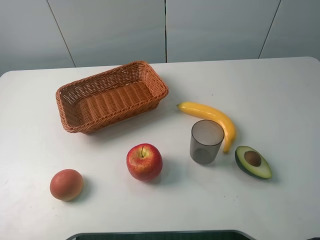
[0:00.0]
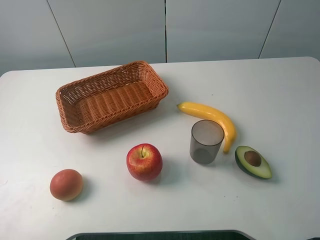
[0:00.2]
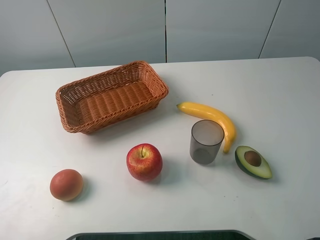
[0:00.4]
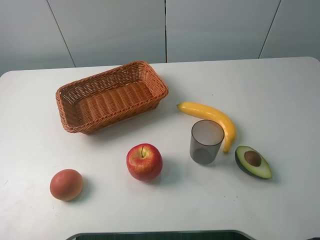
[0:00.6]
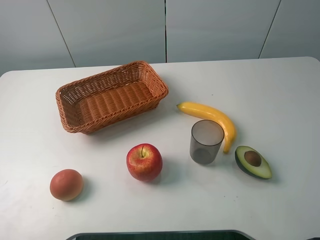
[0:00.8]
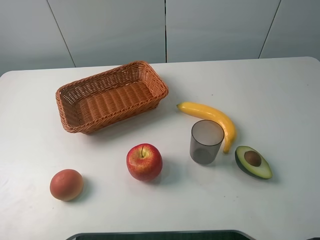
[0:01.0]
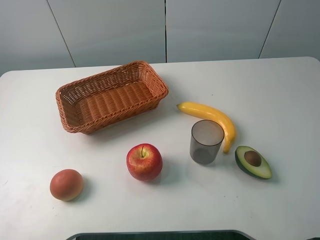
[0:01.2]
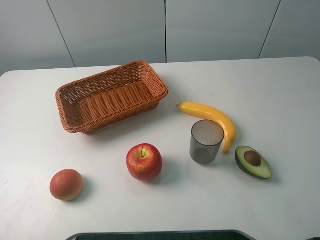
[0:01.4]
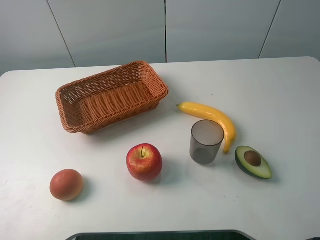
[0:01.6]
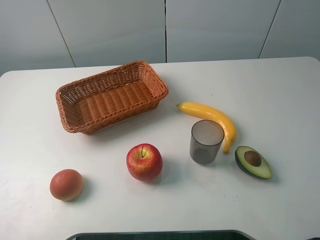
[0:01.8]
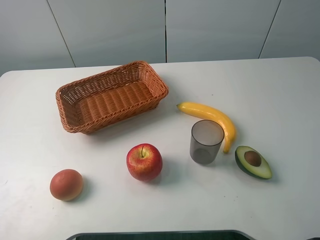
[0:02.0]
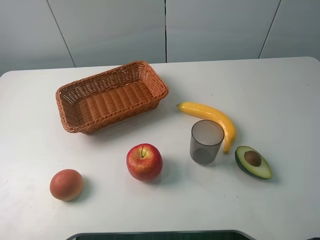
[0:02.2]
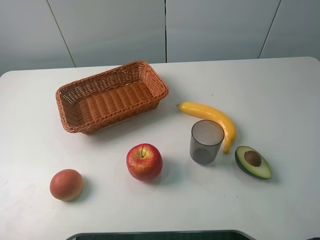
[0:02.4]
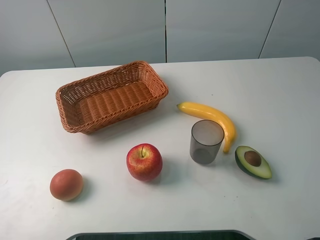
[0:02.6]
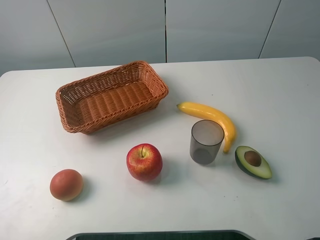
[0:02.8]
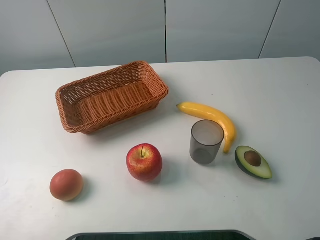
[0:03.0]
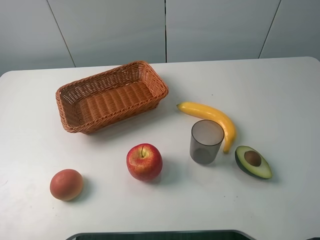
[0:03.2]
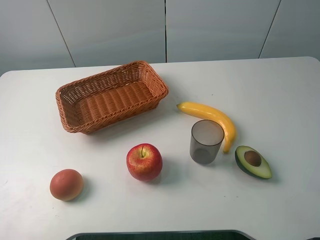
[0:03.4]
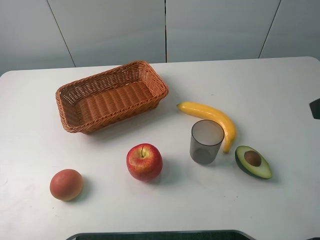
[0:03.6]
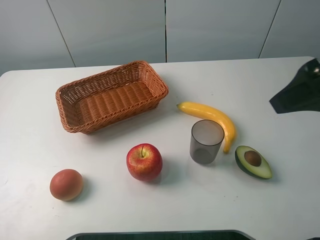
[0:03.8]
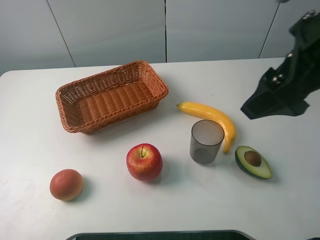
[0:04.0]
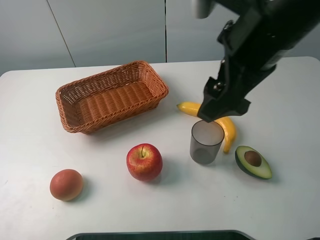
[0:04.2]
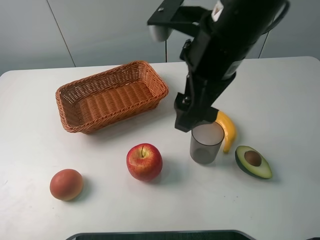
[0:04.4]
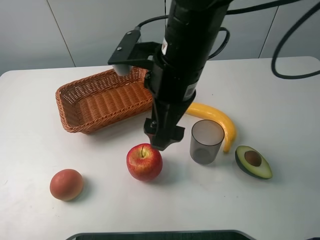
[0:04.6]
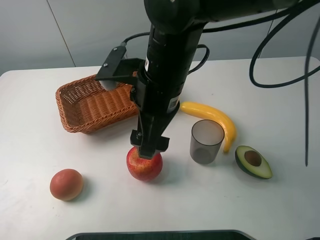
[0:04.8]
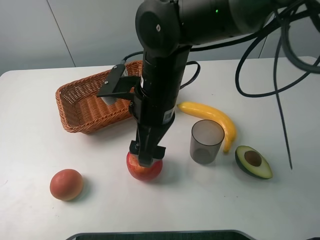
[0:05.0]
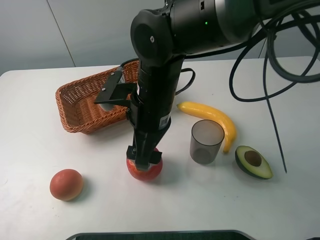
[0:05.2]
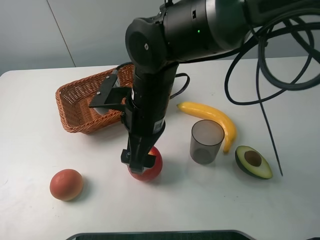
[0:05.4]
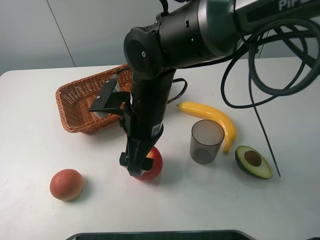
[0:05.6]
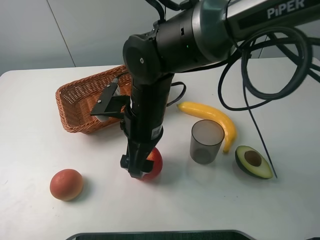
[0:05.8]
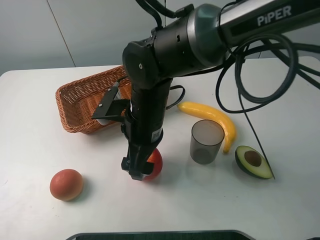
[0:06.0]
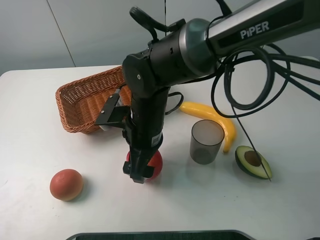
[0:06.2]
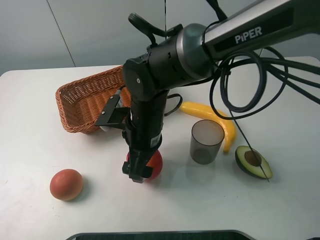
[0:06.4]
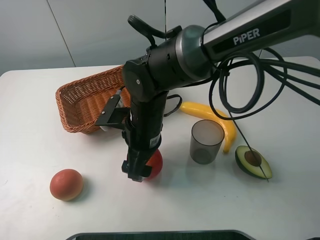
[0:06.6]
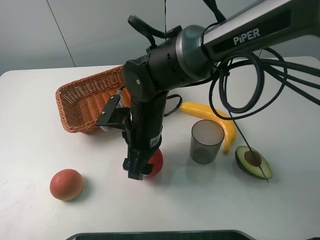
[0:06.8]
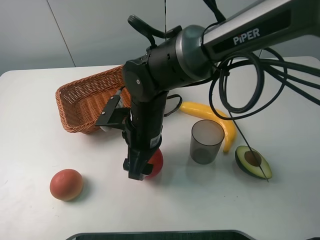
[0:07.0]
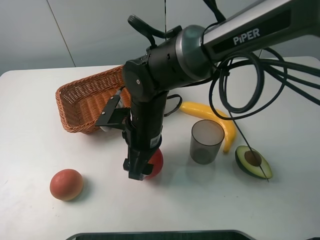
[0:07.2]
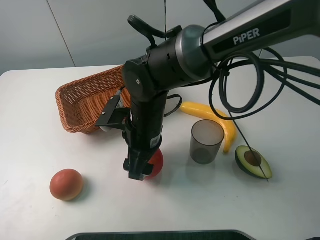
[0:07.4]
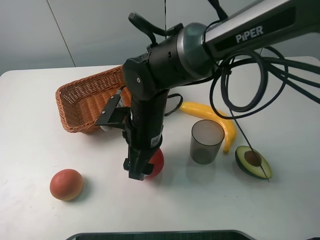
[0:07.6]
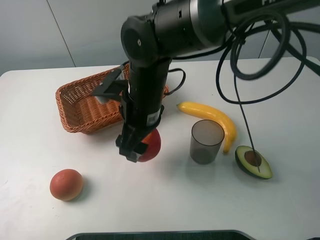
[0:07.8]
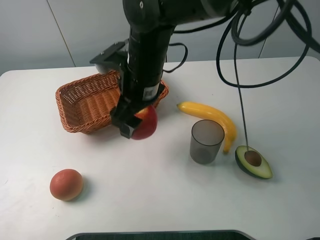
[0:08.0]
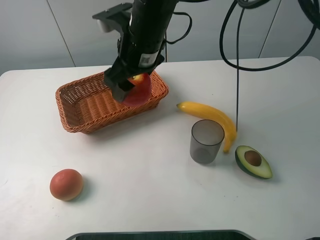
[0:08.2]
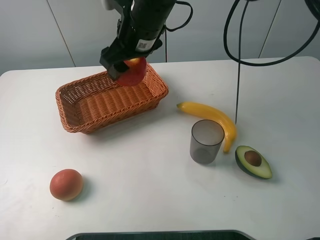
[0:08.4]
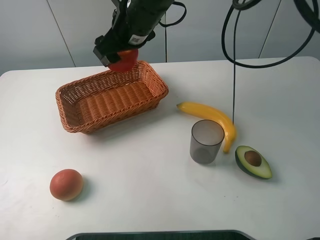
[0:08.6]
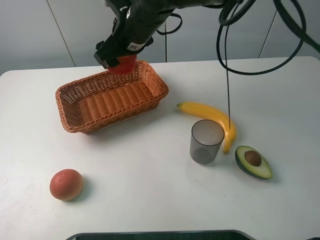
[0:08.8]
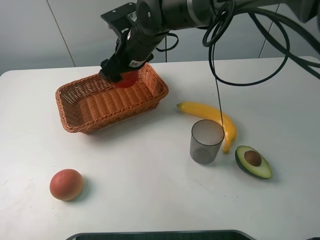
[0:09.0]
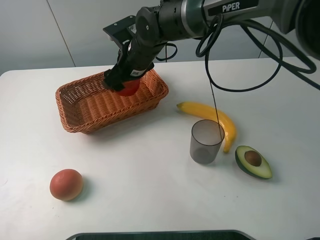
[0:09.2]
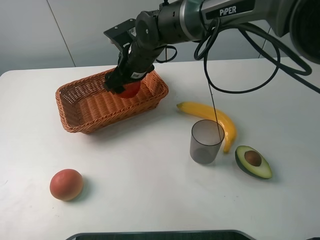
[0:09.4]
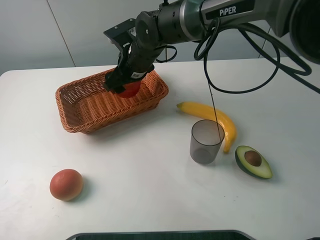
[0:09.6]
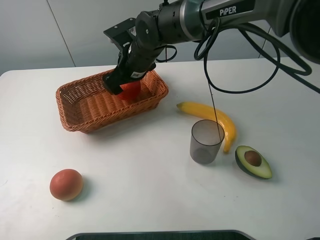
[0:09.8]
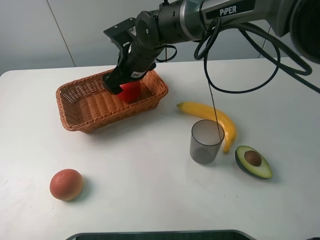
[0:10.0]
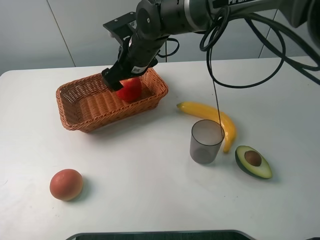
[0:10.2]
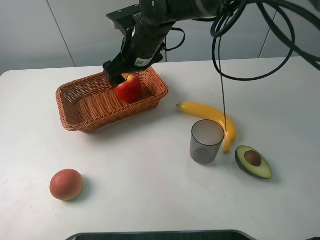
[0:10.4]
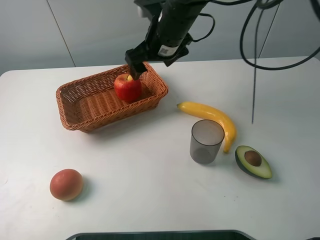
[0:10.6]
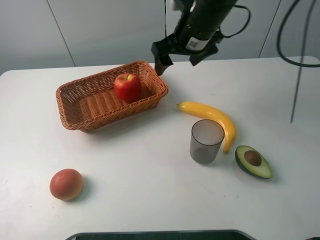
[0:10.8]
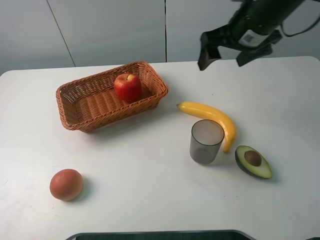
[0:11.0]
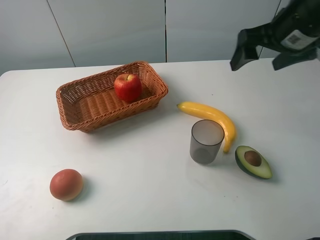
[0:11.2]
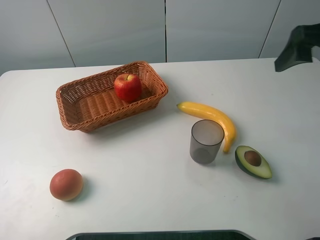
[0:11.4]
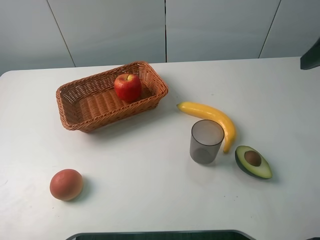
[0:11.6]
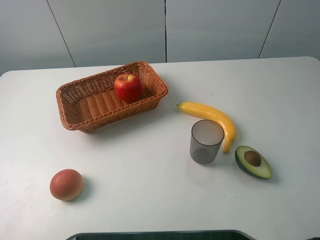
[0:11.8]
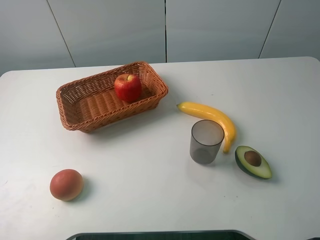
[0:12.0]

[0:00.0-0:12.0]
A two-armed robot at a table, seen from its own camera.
Task of the whole recording: randomly pick up an item from the table and put it in the basket.
Step, 0:00.0 to 0:06.6: Grasp the apple with the right gripper.
Step, 0:06.8 to 0:10.4: Place the apple into the basket with the right gripper.
0:00.0 to 0:03.0: Neither gripper changes place.
0:03.0 to 0:04.4: The right gripper moves to the left and forward, some 30 cm.
0:04.4 to 0:06.0: The right gripper shifts about 15 cm downward and to the left.
0:06.0 to 0:07.6: The right gripper closes up.
0:07.6 to 0:09.0: The right gripper heads forward, covering about 15 cm.
0:09.0 to 0:10.4: The right gripper opens its fingers.
0:10.4 to 0:12.0: The right gripper moves to the right, backward and upward, some 40 cm.

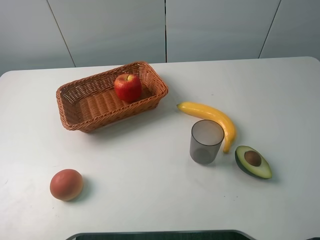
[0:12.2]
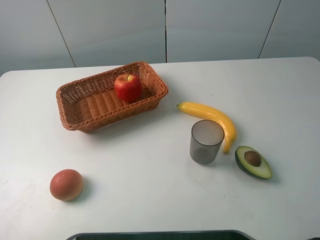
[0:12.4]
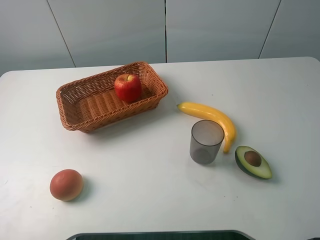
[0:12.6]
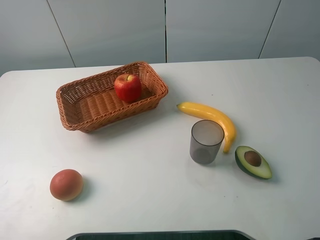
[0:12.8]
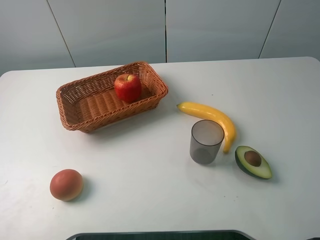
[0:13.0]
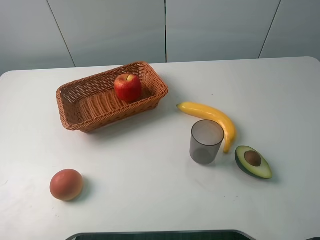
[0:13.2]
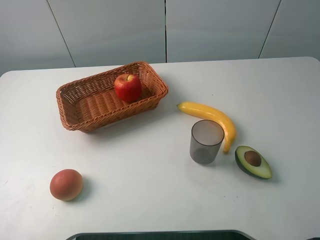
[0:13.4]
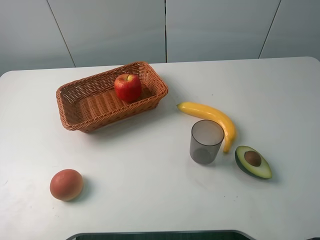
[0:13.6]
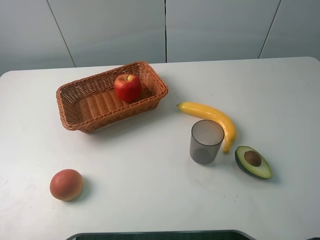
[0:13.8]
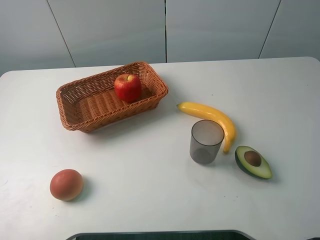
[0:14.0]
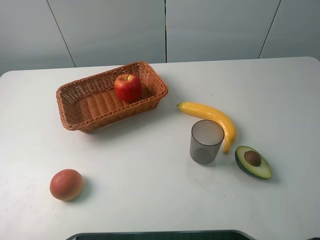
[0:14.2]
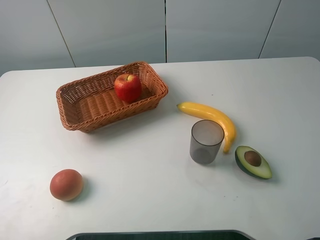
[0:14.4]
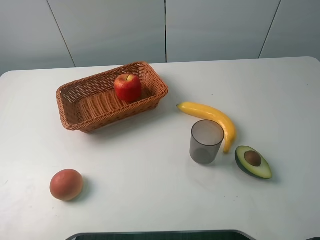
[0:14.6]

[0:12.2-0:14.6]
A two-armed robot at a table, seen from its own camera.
Task of the whole recording: randomly pick up an item from the table and put it in the basket.
0:13.4 to 0:14.6: The two grippers keep their place.
